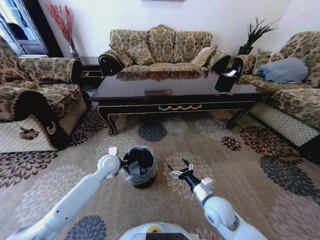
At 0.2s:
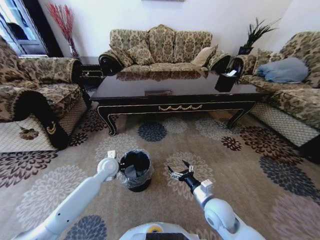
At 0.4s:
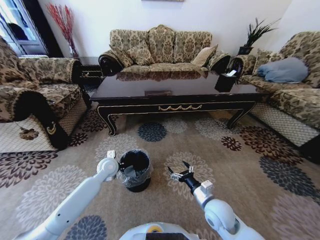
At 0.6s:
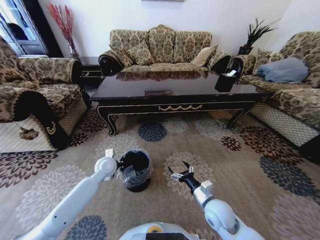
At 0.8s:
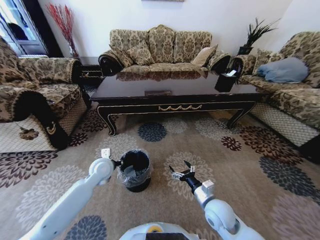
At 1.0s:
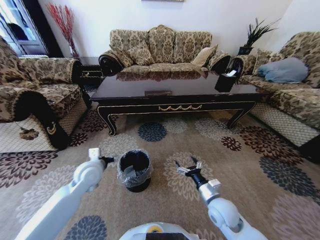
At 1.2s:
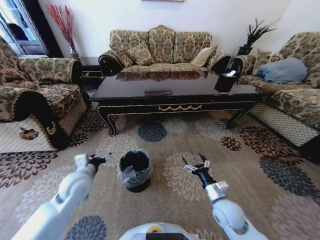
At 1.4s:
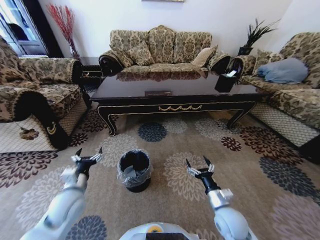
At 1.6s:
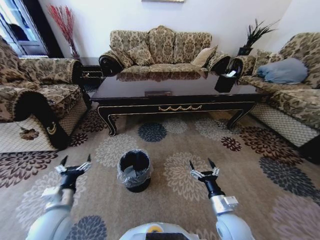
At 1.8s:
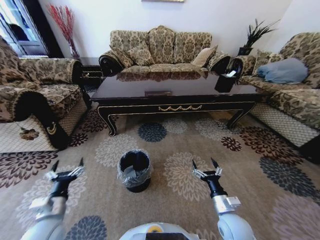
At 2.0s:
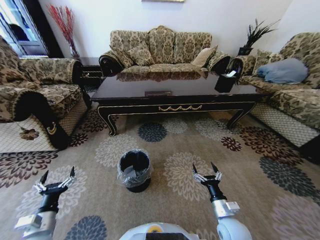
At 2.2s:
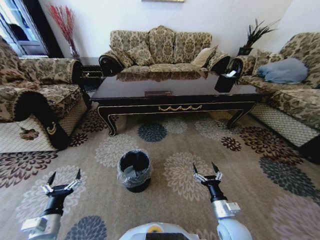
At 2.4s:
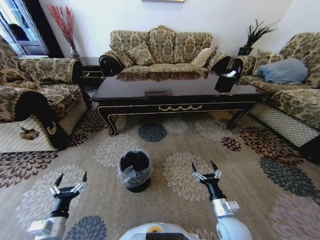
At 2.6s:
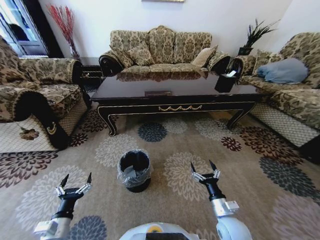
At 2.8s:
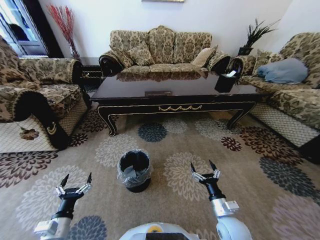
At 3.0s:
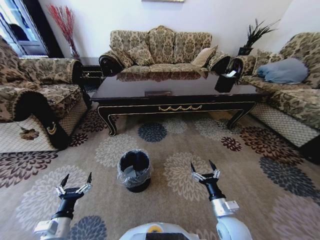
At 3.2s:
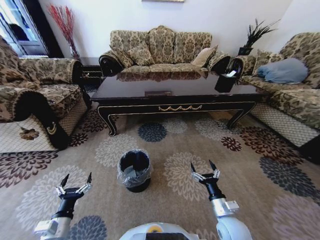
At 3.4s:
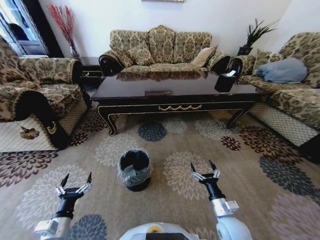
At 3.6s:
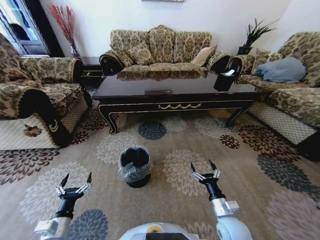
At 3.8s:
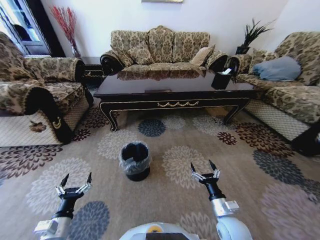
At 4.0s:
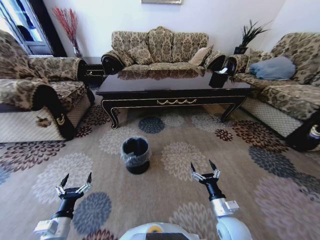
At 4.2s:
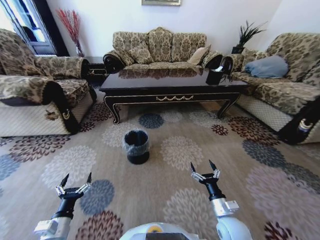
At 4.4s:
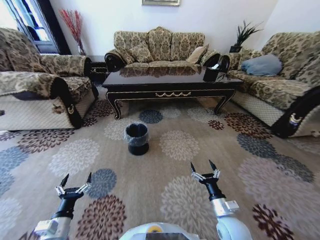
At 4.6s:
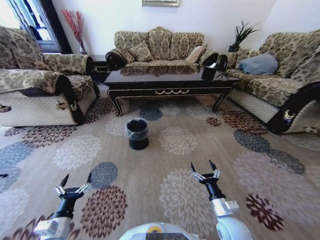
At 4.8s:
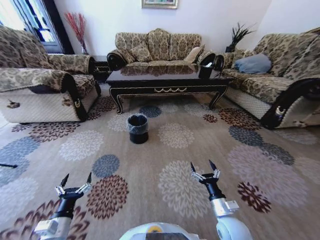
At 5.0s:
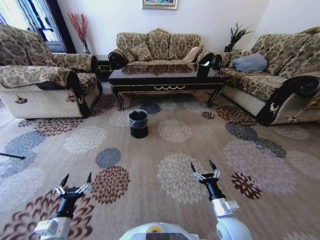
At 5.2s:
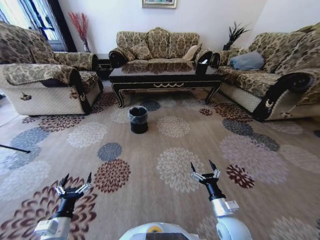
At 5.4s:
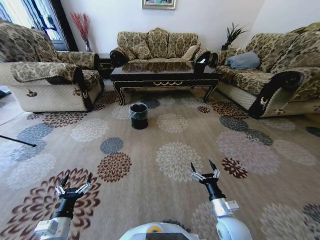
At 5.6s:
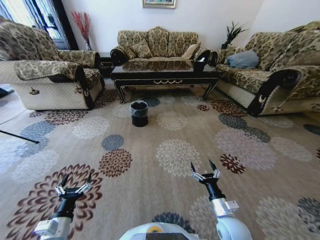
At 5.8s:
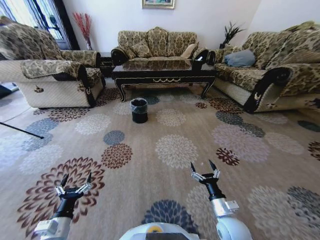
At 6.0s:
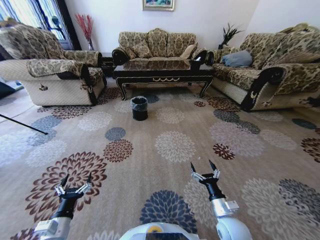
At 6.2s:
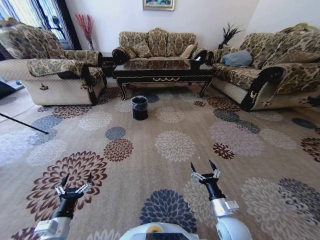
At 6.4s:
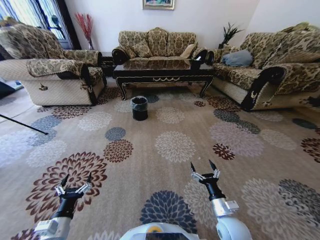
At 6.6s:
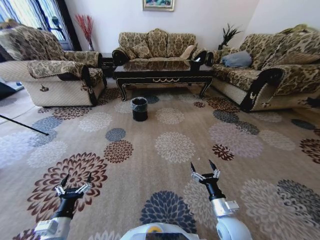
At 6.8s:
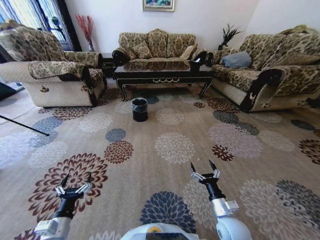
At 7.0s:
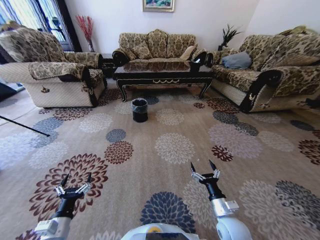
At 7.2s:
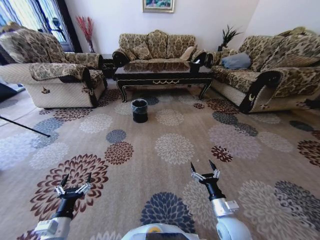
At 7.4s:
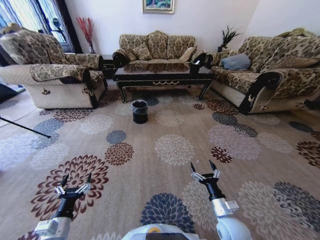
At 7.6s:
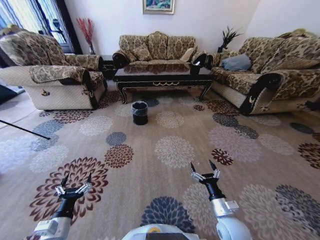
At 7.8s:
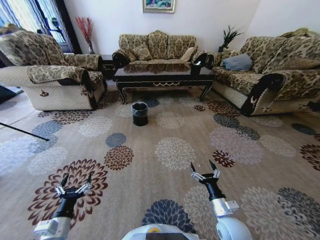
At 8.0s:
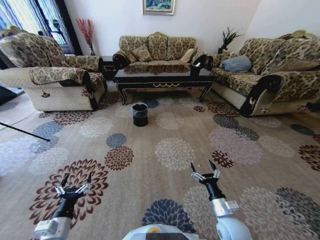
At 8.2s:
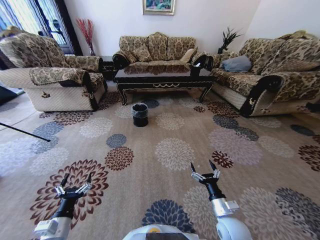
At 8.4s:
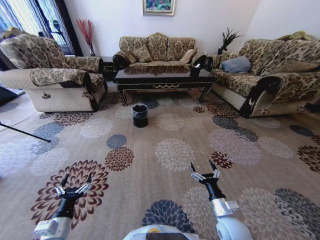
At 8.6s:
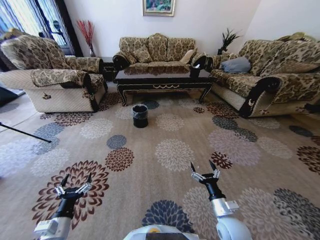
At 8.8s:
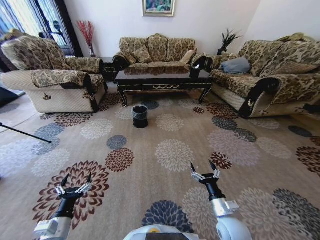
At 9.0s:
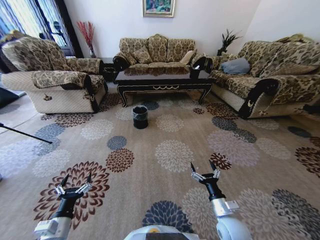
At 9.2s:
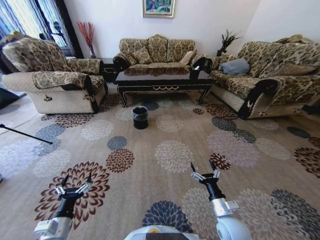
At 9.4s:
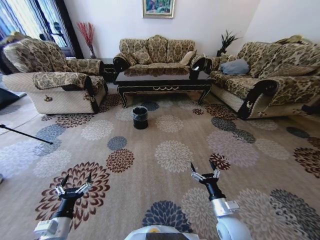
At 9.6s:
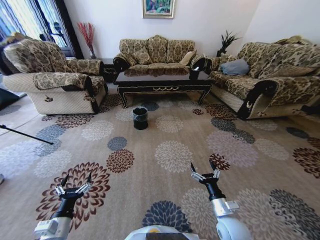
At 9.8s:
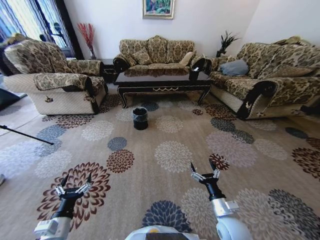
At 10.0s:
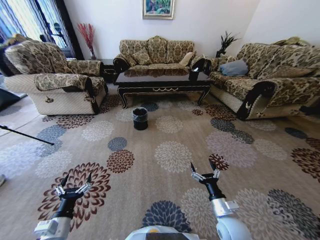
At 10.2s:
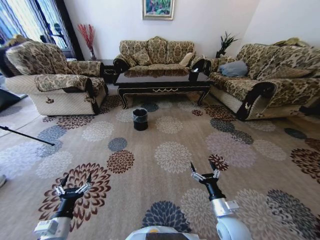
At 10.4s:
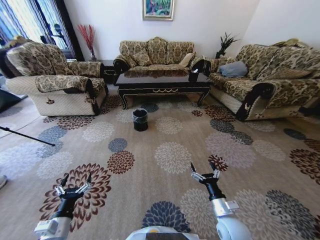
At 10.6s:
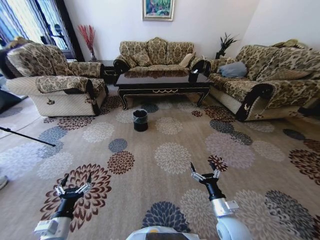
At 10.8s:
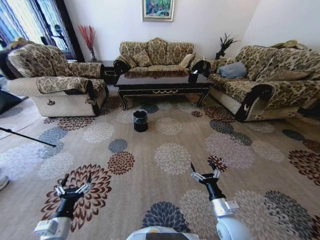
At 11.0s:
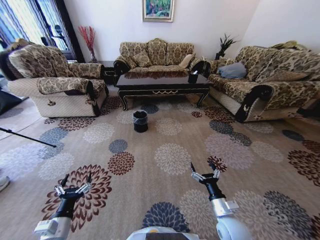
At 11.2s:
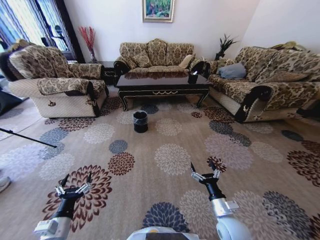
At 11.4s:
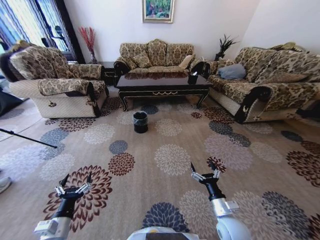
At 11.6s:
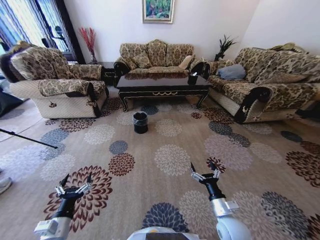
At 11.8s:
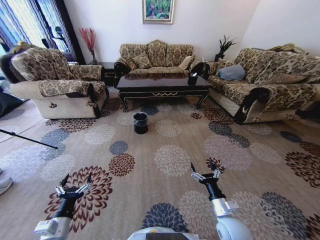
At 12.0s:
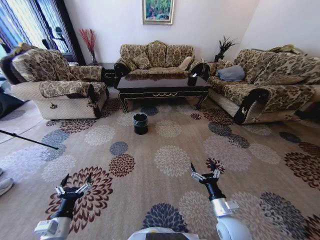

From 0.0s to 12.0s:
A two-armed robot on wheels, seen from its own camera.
Task of the whole recording: Move to the front of the table and pick up the trash from the floor, then place it into the trash bin.
From 0.0s to 1.6s: The right gripper moves about 5 cm. Meanwhile the left gripper moves backward and to the left, approximately 25 cm, and opens up.
From 1.6s to 3.0s: The left gripper goes approximately 10 cm backward and downward.

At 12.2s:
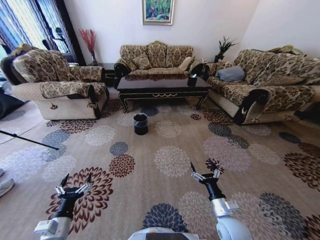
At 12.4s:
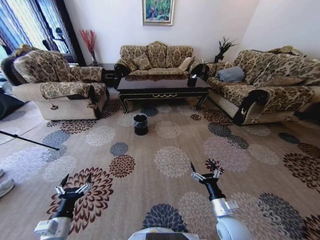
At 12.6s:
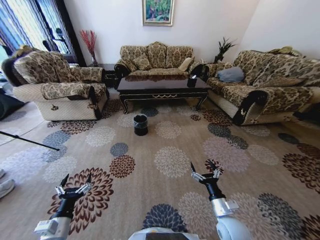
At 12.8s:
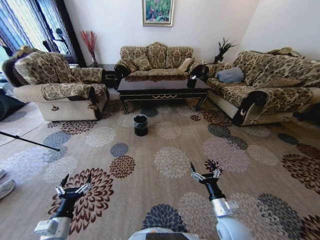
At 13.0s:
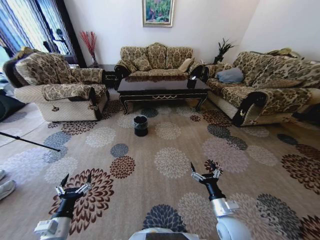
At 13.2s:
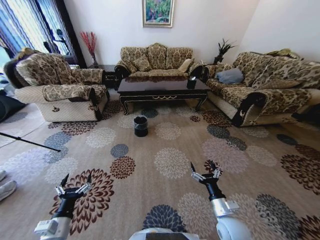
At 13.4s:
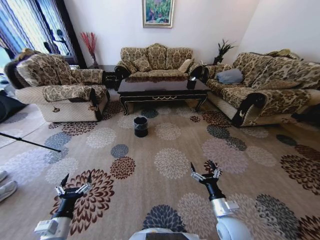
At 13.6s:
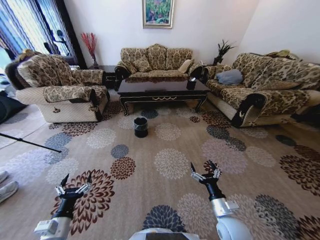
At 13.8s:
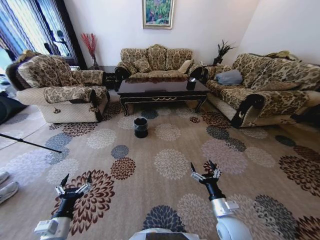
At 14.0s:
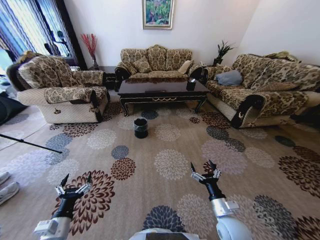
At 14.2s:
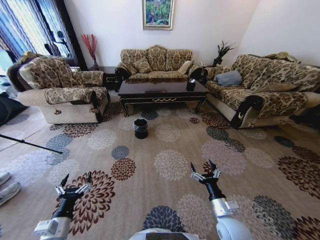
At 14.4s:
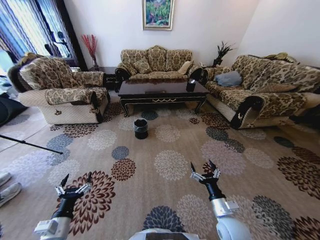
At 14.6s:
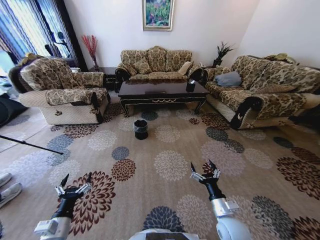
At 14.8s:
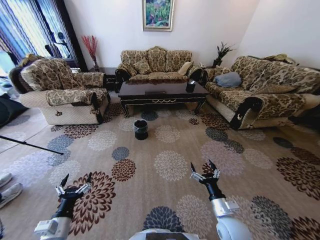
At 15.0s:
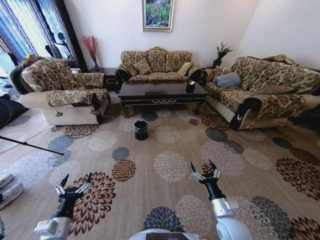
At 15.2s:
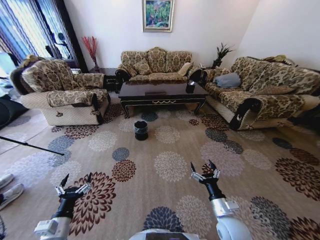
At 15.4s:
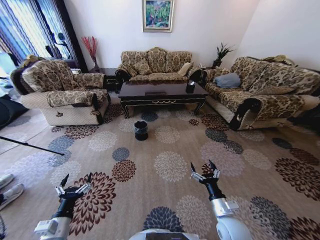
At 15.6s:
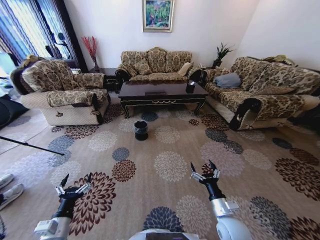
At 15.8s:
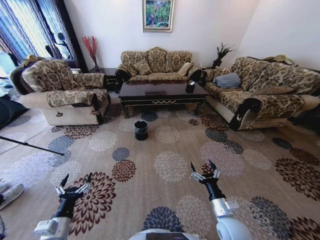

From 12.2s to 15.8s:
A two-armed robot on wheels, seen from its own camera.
Task of the whole recording: Move to the front of the table and pick up the trash from the floor, then place it into the trash bin.
From 14.0s to 15.8s: Both grippers stay put.
